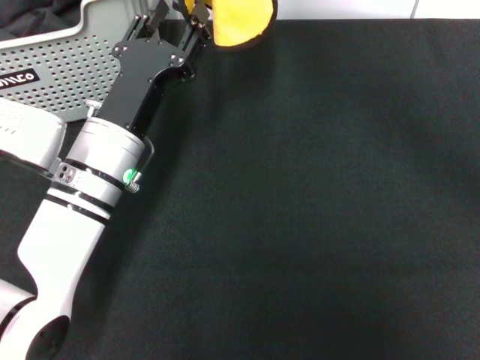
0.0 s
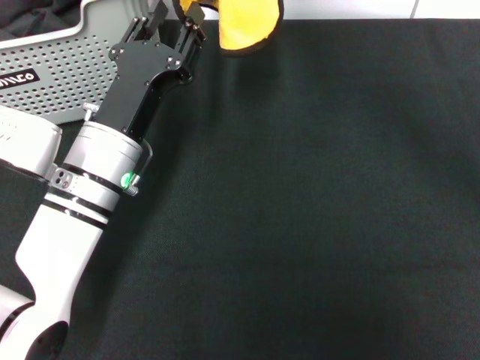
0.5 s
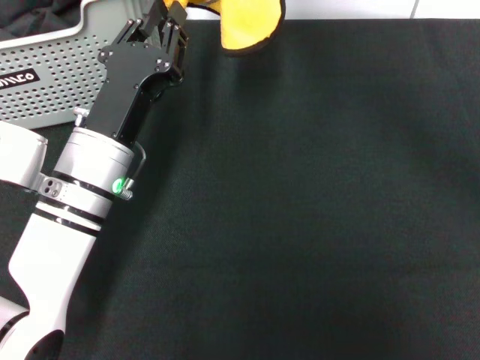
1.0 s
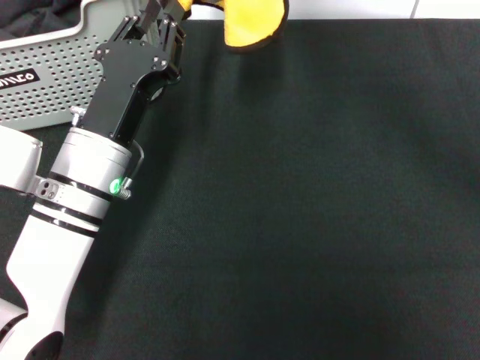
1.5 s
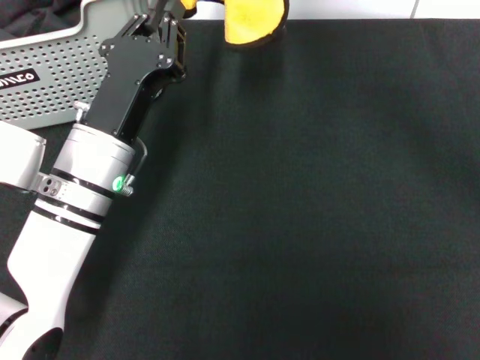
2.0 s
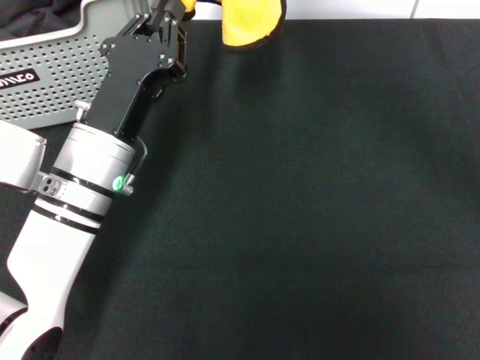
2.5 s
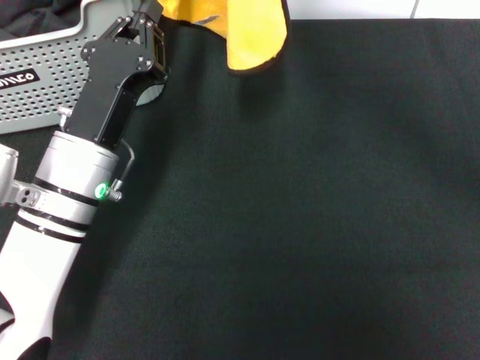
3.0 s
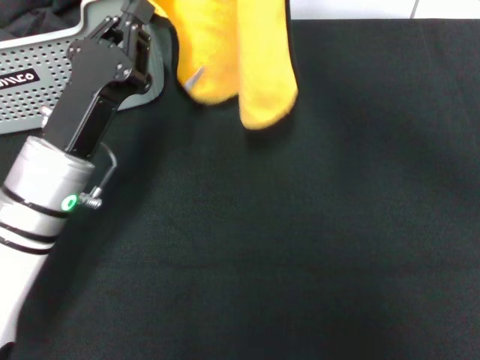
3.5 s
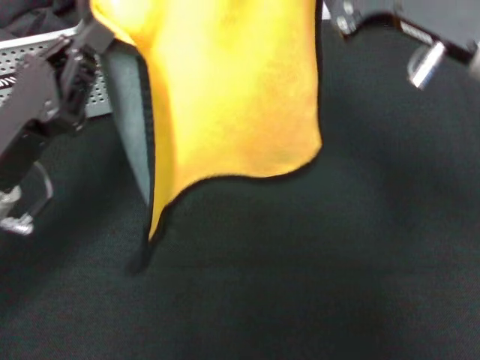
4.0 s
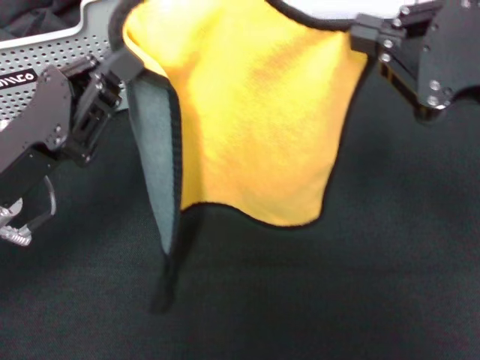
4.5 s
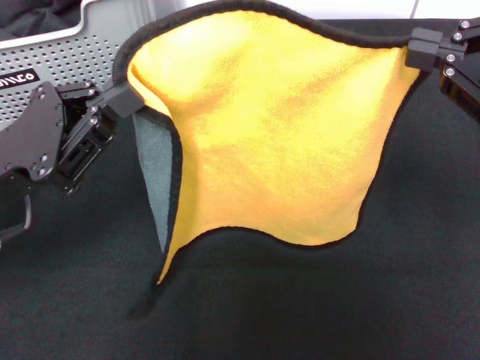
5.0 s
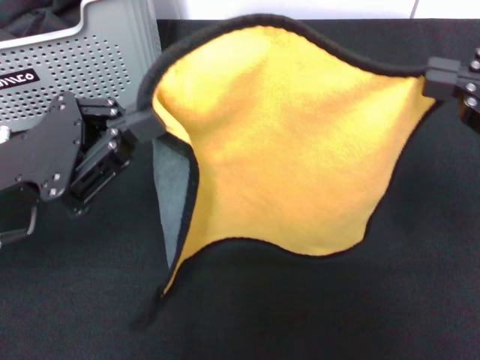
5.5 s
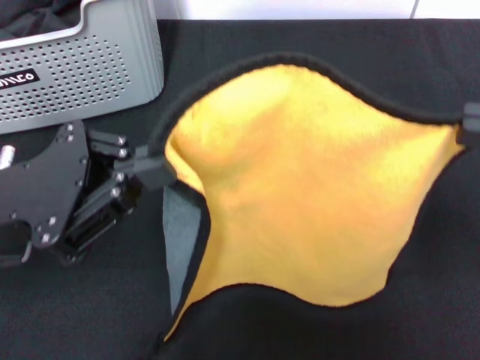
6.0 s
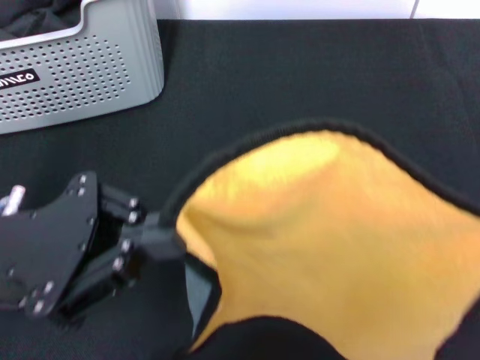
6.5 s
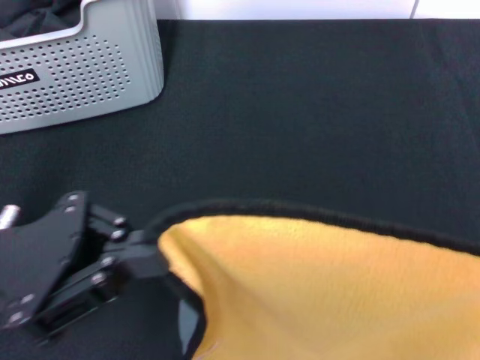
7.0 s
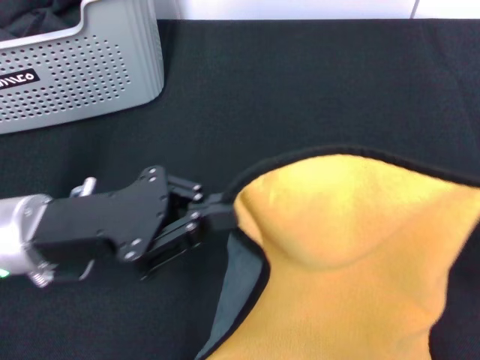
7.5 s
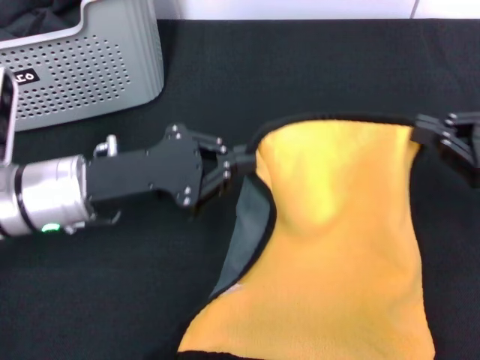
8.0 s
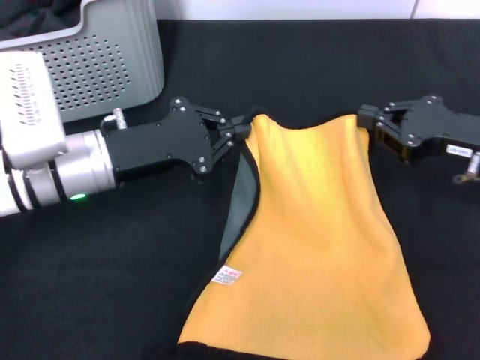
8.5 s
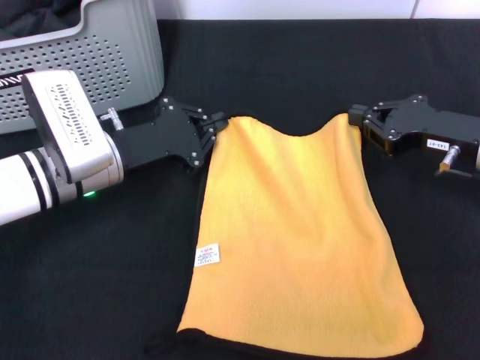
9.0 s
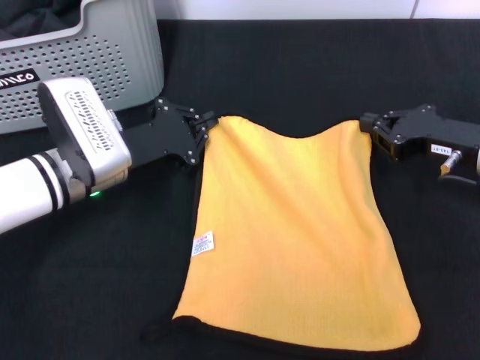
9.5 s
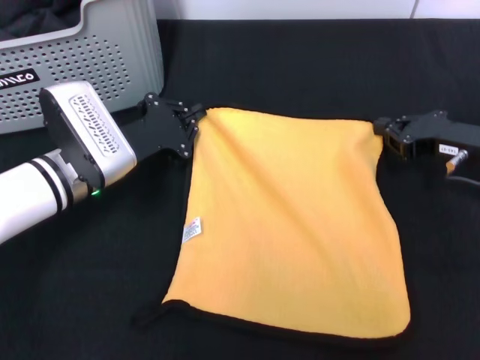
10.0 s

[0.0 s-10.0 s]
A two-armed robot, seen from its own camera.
Task of the whole recording: pick up the towel from the storage box and lay it flat on the black tablecloth.
0.0 to 2.0 s: The left gripper closes up.
2.0 to 4.0 s: The left gripper travels to the left by about 10 cm. The right gripper moves backward, downward and to the right, some 15 cm.
4.0 to 6.0 s: The right gripper goes about 15 cm to the right and backward.
6.0 to 8.0 s: The right gripper shifts about 15 cm downward and forward. Meanwhile the left gripper heads forward and downward, covering approximately 10 cm.
8.0 to 10.0 s: The left gripper goes about 10 cm downward and forward, while the right gripper heads forward and downward, covering some 10 cm.

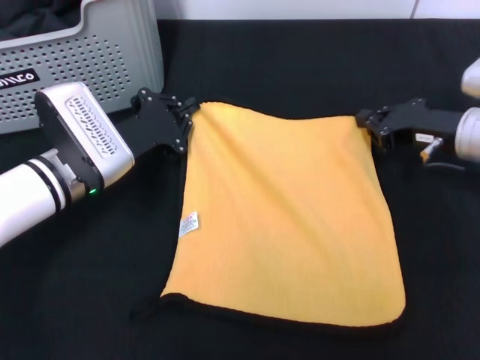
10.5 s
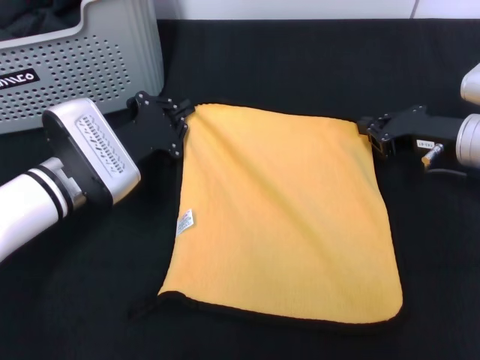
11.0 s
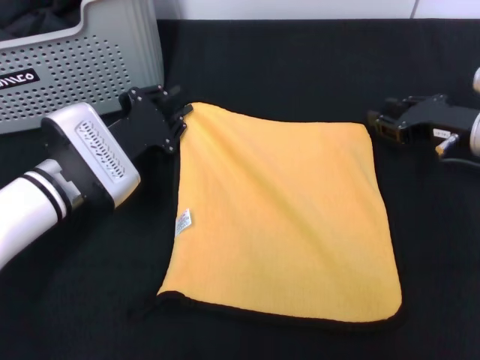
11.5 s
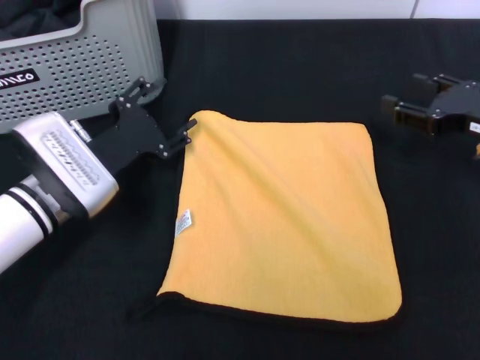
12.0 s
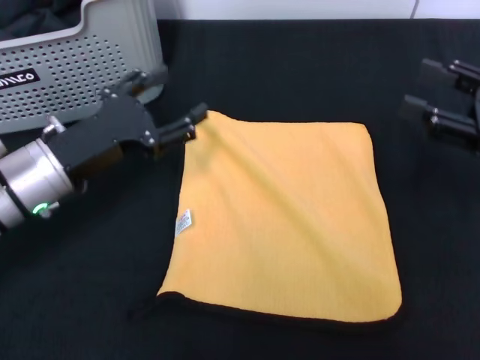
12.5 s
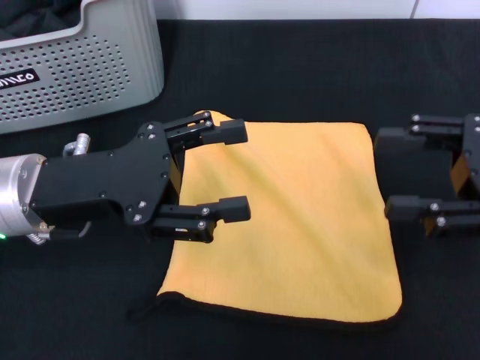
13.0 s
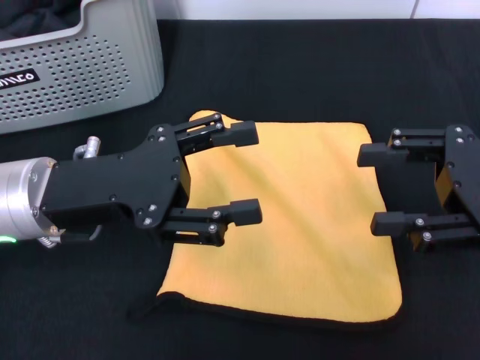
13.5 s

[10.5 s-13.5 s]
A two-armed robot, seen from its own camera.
Task of the whole recording: pick up the towel from the storage box and lay it flat on the black tablecloth.
10.5 to 12.0 s: The left gripper opens up, while the right gripper changes place by roughly 5 cm, and opens.
12.0 to 13.5 s: The left gripper travels upward and backward by some 10 cm, while the right gripper goes roughly 10 cm backward and upward.
